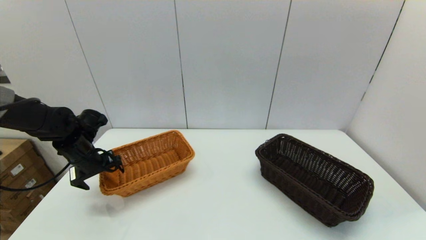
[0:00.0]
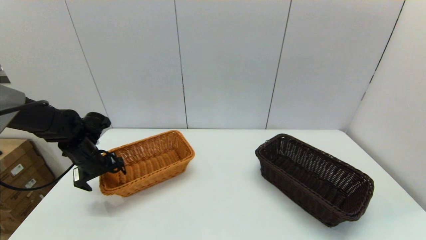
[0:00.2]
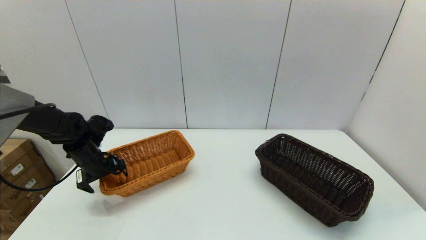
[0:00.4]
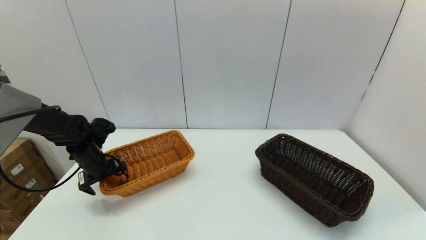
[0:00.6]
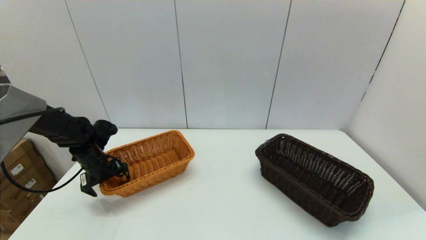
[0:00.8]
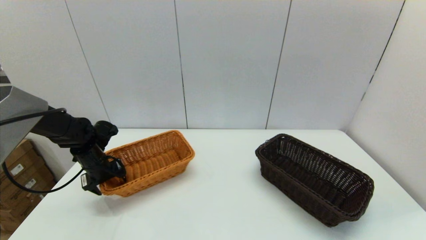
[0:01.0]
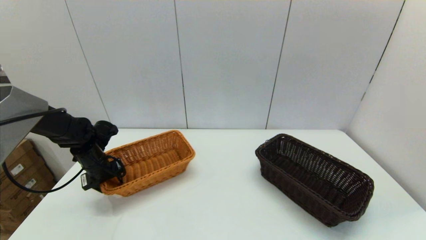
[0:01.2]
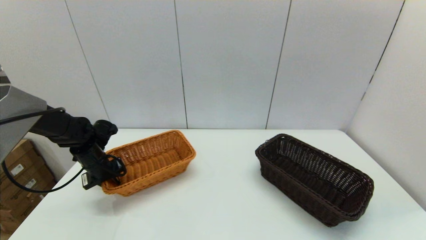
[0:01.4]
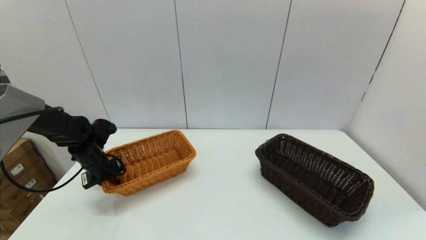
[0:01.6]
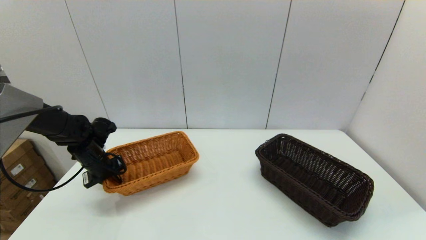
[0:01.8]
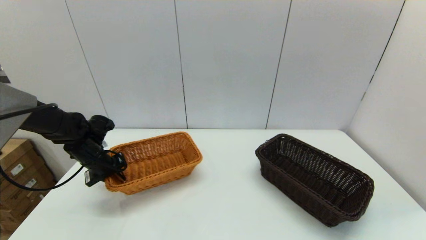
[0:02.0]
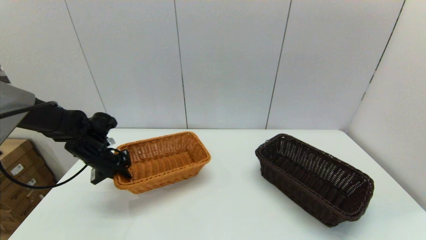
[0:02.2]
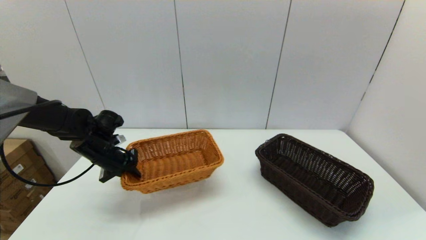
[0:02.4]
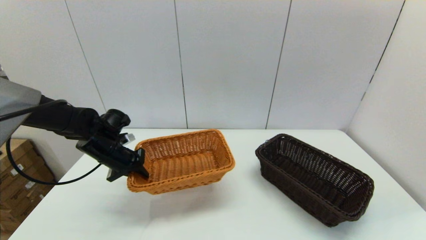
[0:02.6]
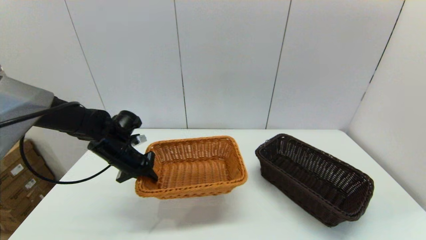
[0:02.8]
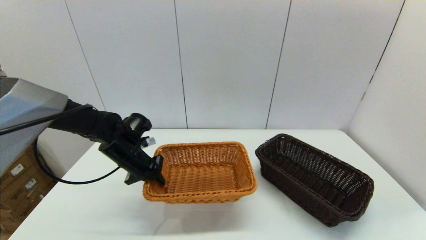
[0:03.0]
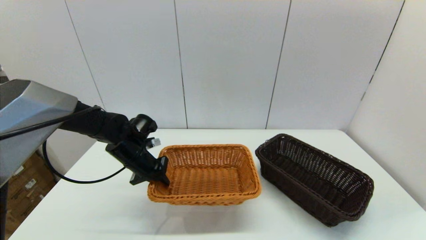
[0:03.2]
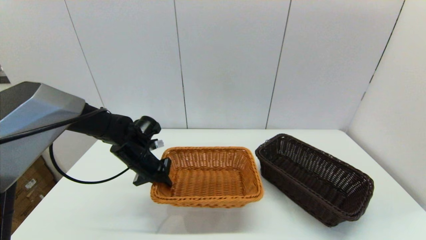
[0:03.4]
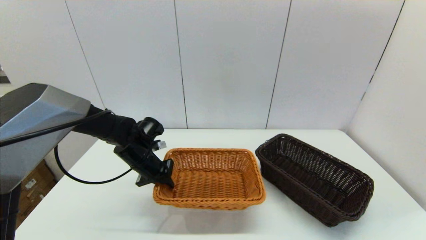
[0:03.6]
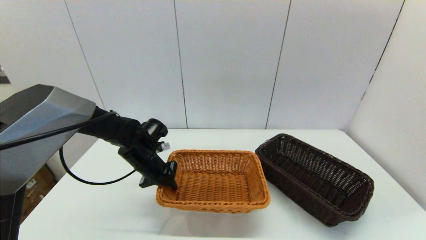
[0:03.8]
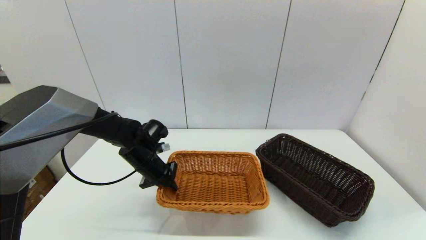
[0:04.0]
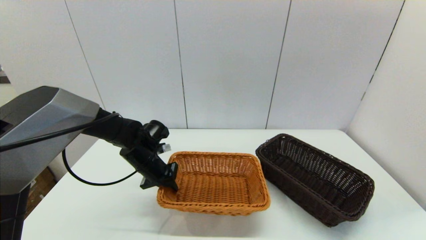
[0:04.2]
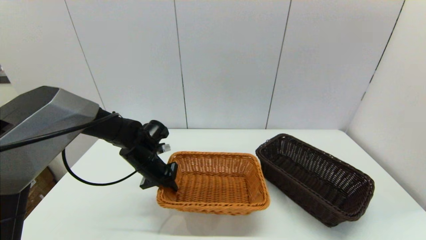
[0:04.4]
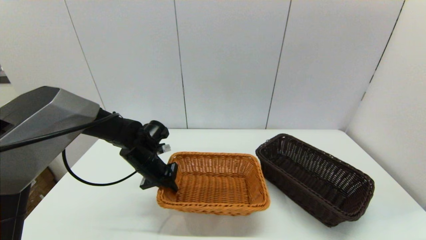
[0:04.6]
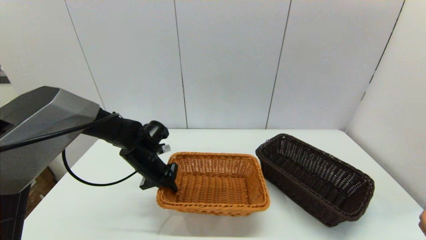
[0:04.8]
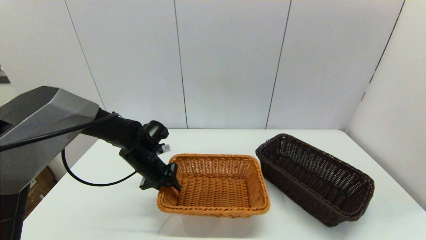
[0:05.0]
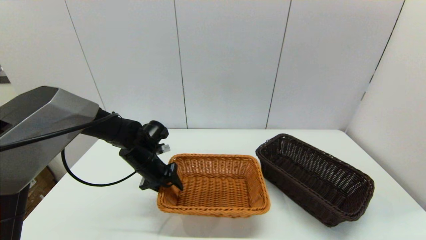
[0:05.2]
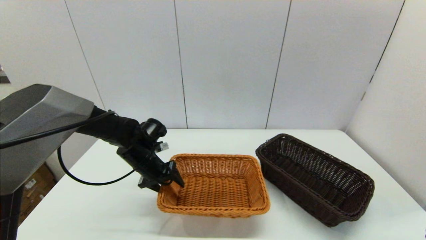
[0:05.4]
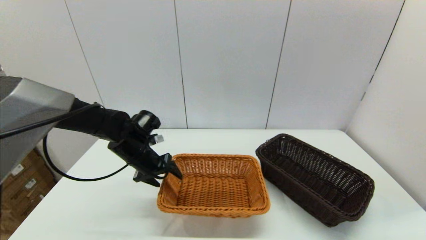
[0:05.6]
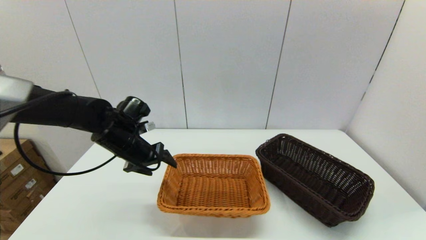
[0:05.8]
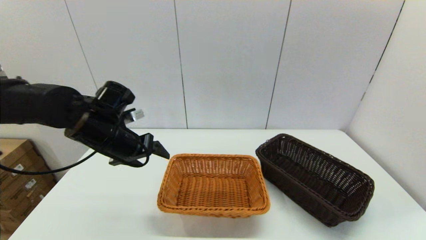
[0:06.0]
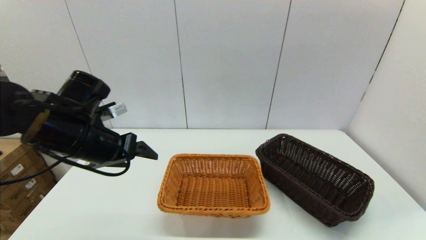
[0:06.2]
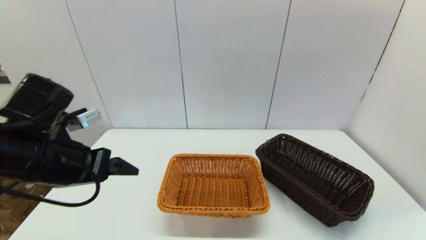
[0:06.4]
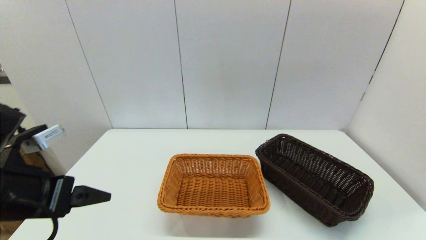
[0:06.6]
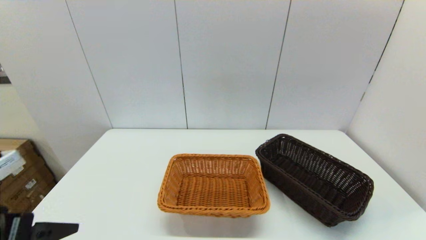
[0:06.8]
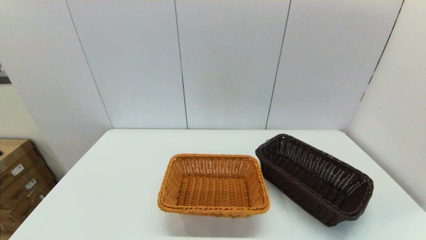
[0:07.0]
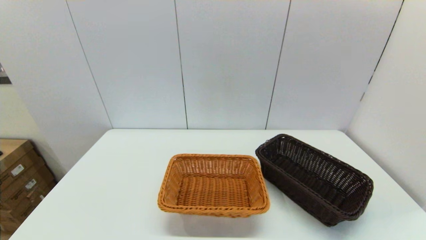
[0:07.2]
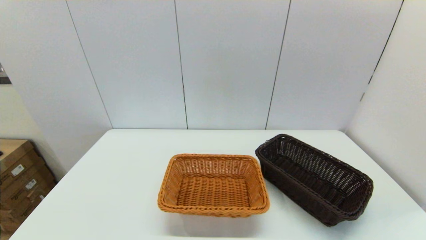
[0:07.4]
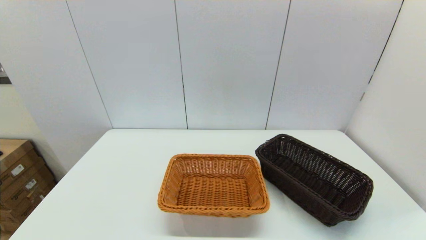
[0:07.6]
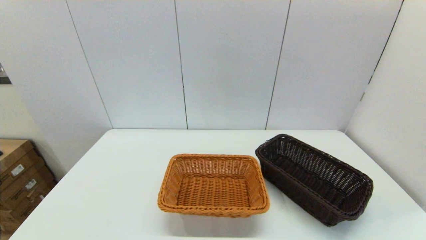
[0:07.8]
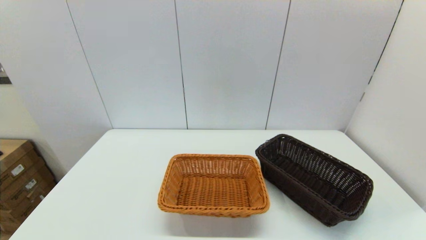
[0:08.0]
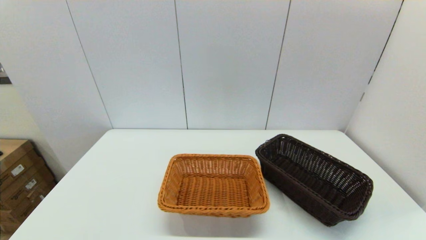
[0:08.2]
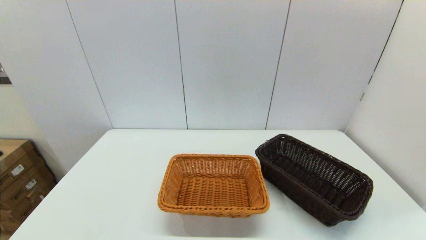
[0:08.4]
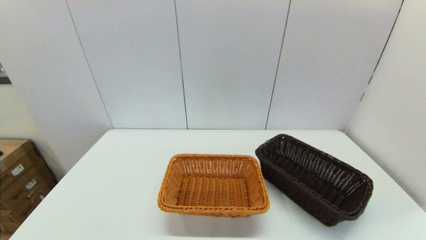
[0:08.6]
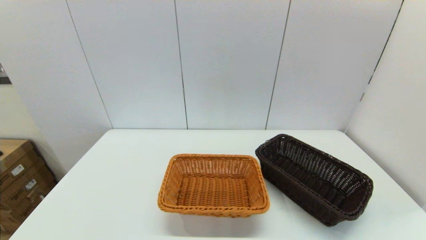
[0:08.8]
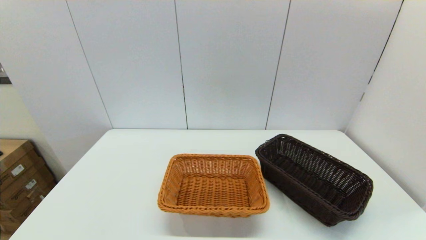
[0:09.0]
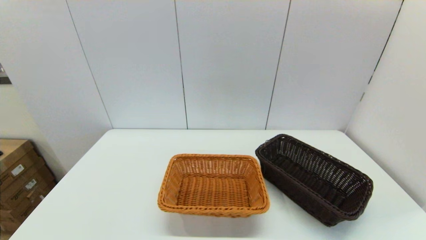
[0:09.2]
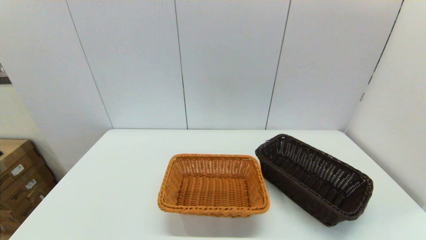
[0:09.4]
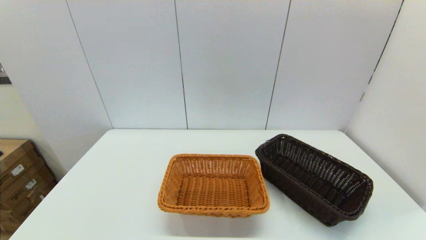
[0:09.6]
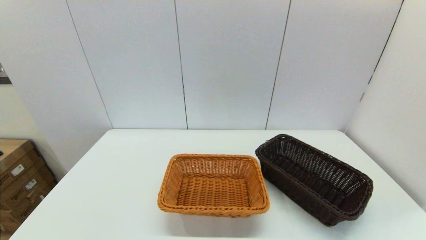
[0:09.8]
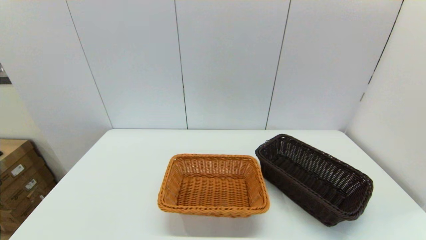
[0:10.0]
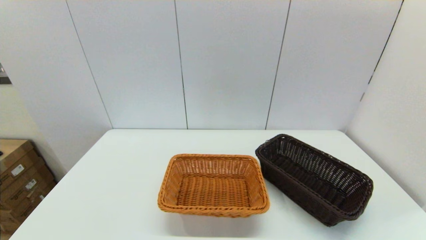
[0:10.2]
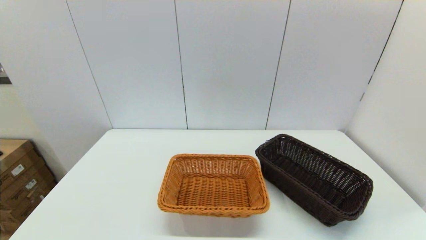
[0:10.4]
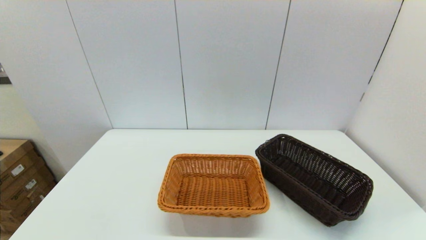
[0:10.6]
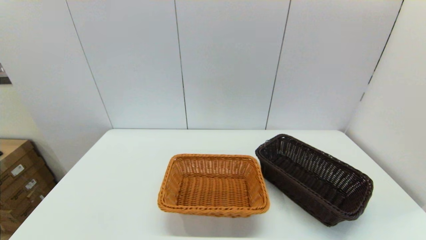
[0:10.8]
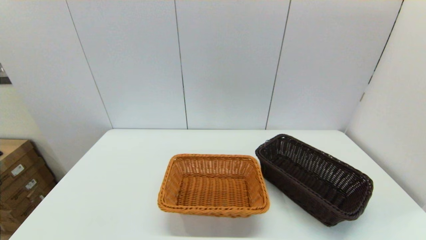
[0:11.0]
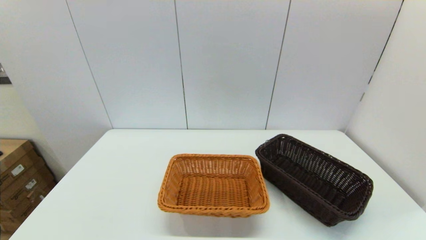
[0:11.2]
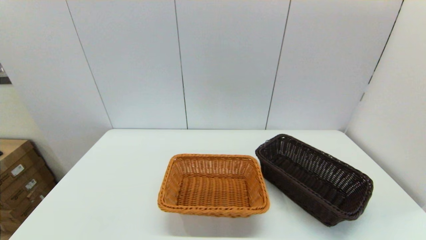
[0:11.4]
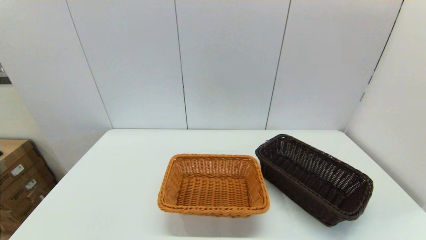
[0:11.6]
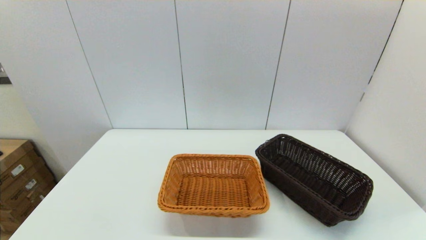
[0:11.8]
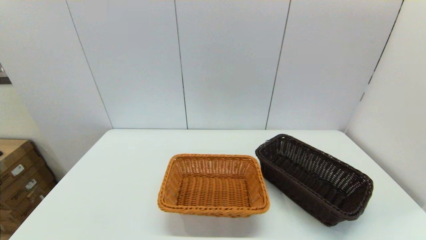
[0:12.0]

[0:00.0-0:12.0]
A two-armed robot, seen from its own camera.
Task of the whole recording: stack a basket on top of another basket.
Step, 0:00.0 to 0:02.0: Grasp the light basket with the left gripper.
Step, 0:02.4 to 0:06.0: Place the light basket on the middle of the table with the left gripper.
0:00.0 to 0:01.6: The left gripper closes its fingers.
0:01.6 to 0:03.0: The left gripper is displaced to the right by some 10 cm.
0:03.0 to 0:04.4: There are only small adjustments of the grippers.
0:04.4 to 0:06.0: The left gripper heads upward and backward, covering roughly 15 cm, and opens up.
0:06.0 to 0:07.6: The left gripper goes roughly 30 cm backward.
0:10.4 to 0:12.0: Neither gripper changes place.

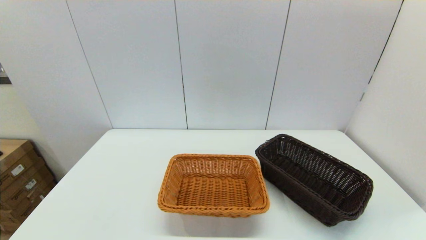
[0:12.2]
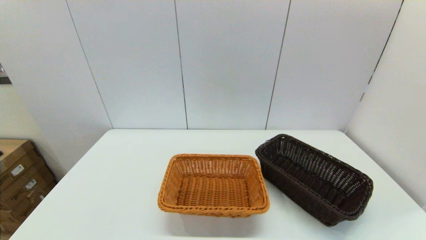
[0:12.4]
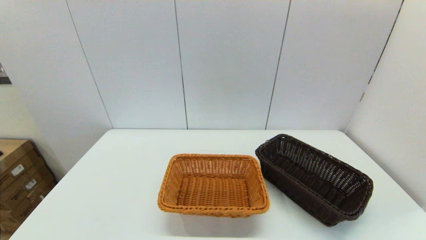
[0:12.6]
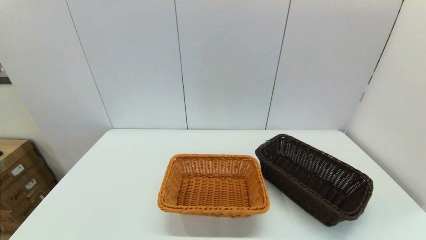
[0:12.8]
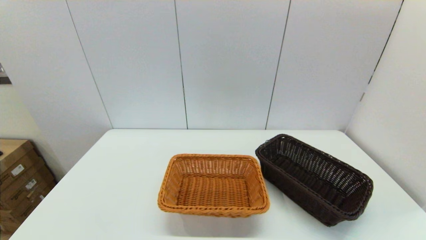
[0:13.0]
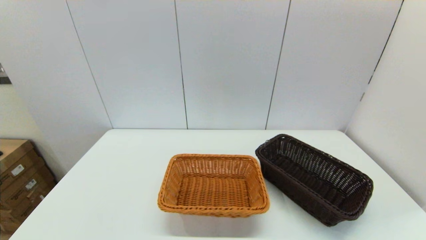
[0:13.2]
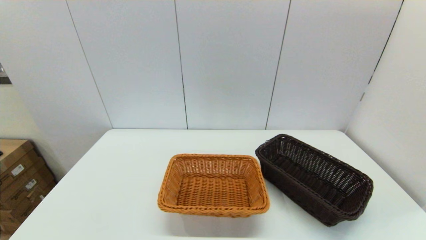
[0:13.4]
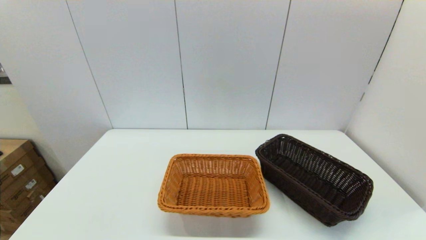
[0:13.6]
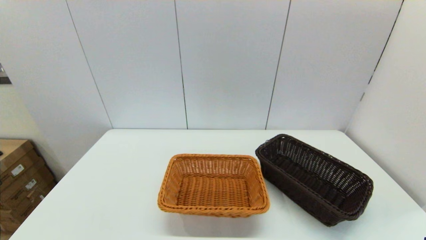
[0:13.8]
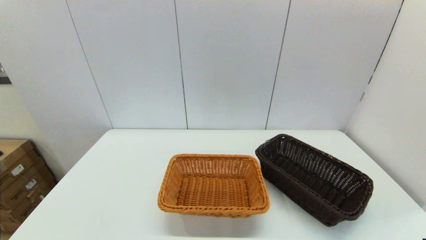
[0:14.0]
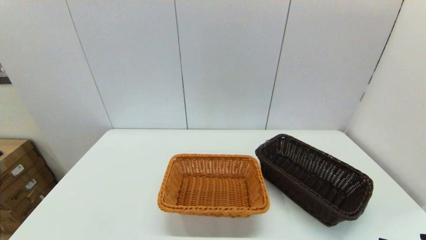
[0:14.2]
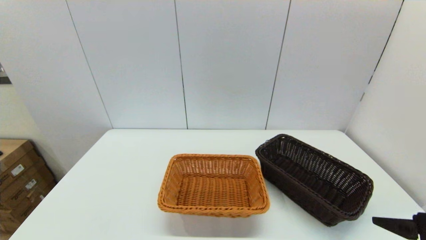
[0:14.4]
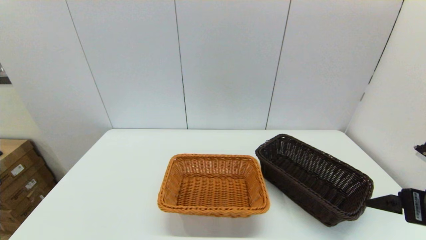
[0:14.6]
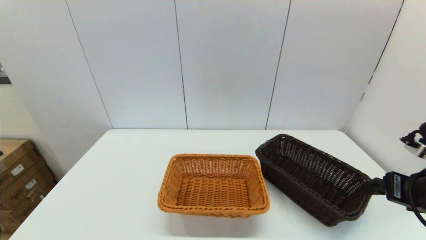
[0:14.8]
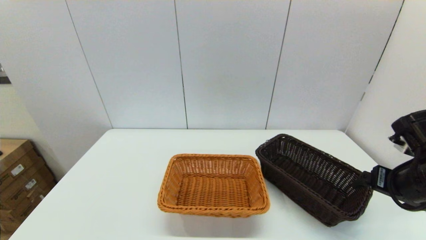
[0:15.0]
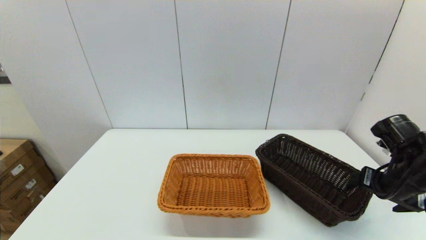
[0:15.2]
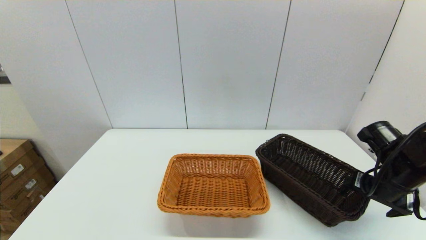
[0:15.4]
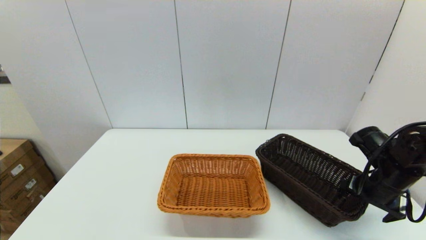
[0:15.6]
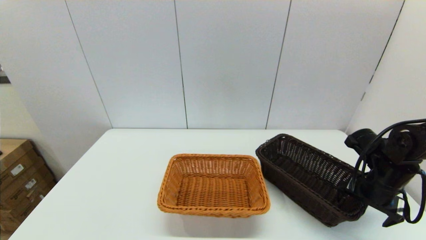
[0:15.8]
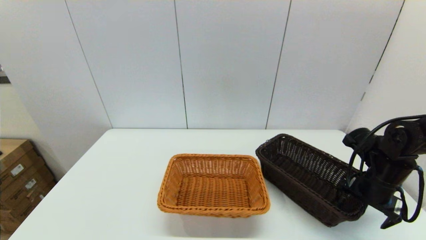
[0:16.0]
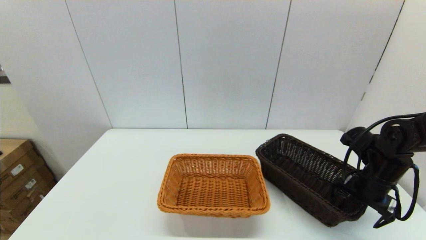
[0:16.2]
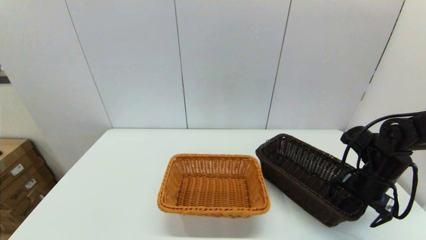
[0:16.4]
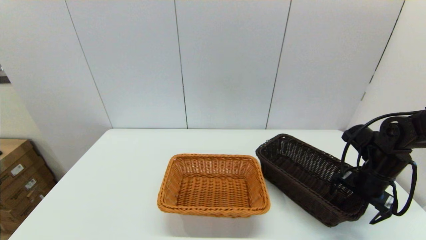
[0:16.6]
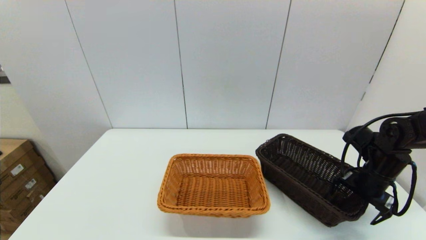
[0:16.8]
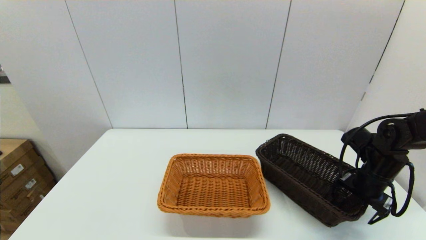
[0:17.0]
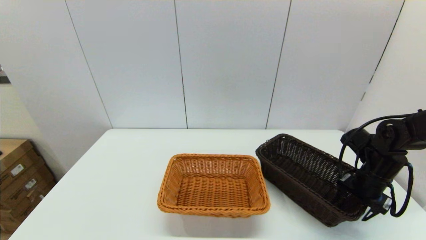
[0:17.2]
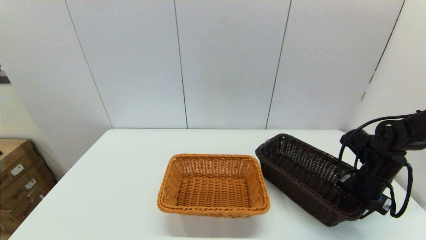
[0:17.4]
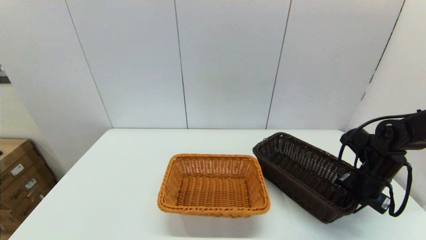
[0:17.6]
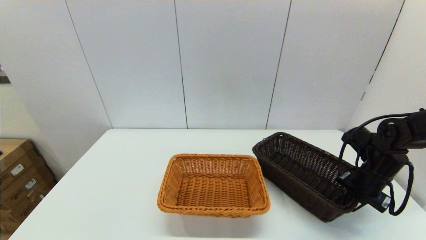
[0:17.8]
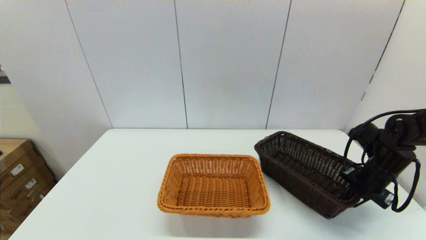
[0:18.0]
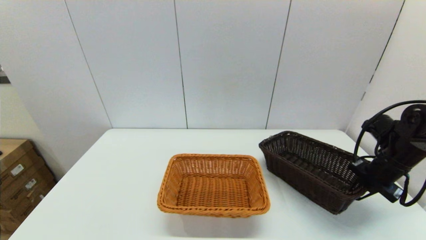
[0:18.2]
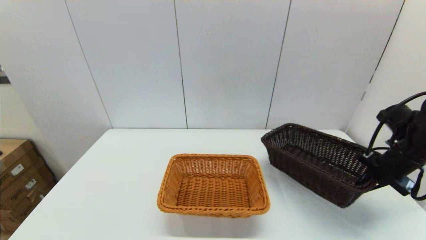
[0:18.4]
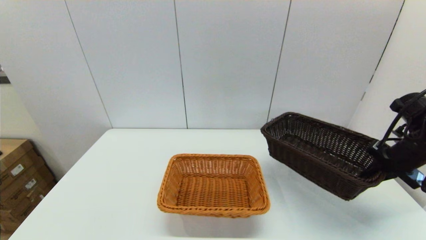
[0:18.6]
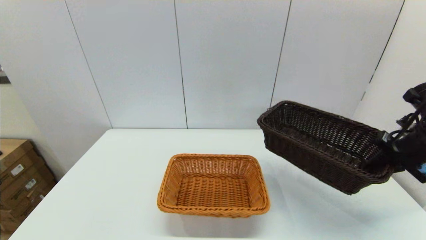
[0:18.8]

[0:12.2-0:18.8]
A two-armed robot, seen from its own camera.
Task of the whole recording: stack a basket on top of another basket.
Step, 0:12.2 to 0:17.6: Grasp the dark basket with the right gripper.
0:13.8 to 0:15.4: The right gripper travels forward by roughly 20 cm.
0:15.4 to 0:17.2: The right gripper changes place by about 5 cm, and closes its fingers.
0:17.2 to 0:18.8: The right gripper moves upward, roughly 15 cm, and closes.
